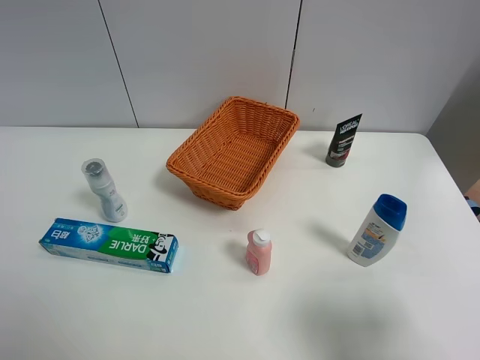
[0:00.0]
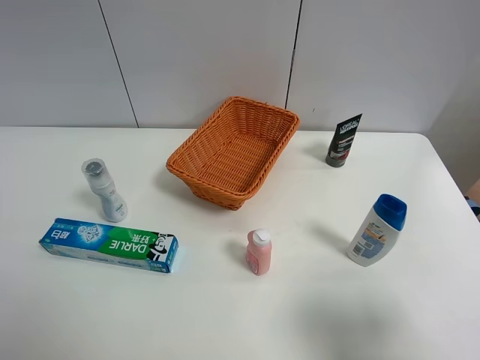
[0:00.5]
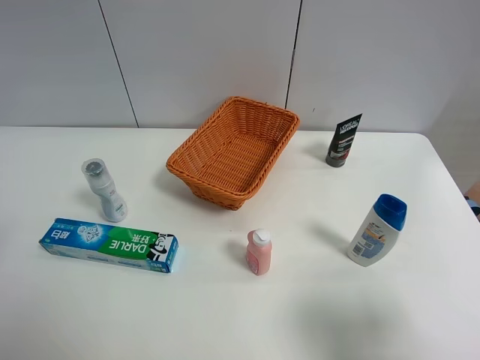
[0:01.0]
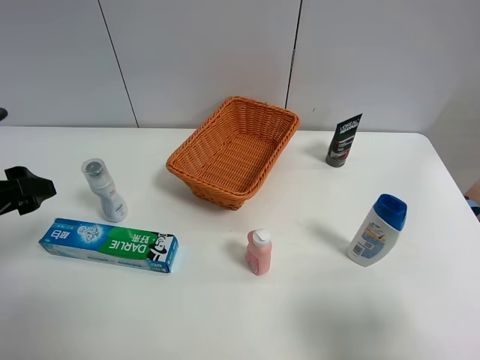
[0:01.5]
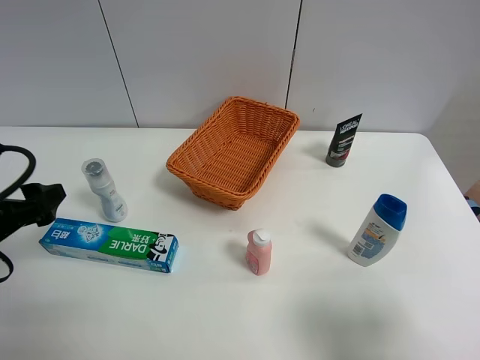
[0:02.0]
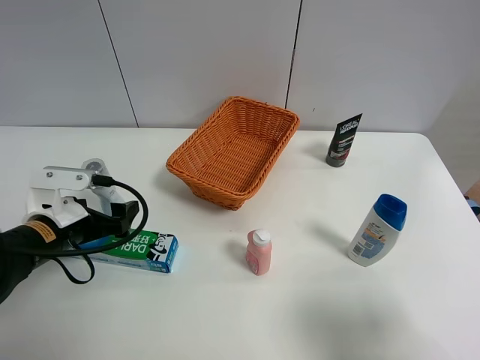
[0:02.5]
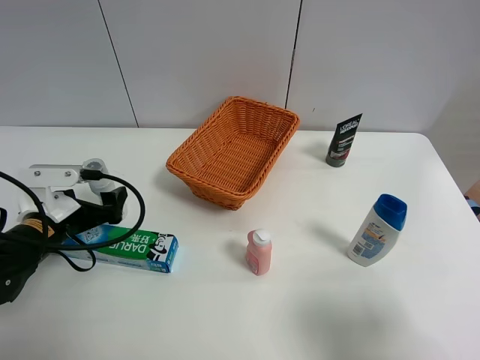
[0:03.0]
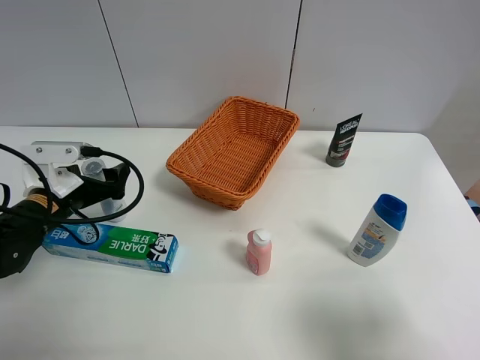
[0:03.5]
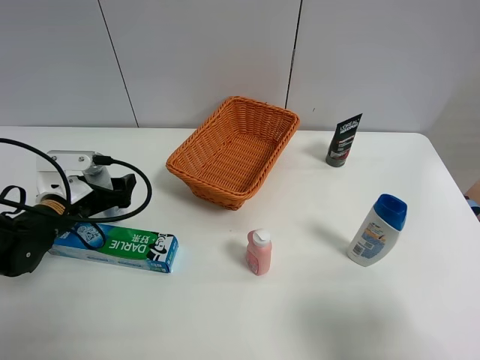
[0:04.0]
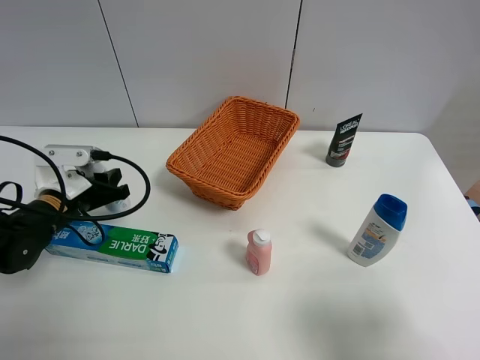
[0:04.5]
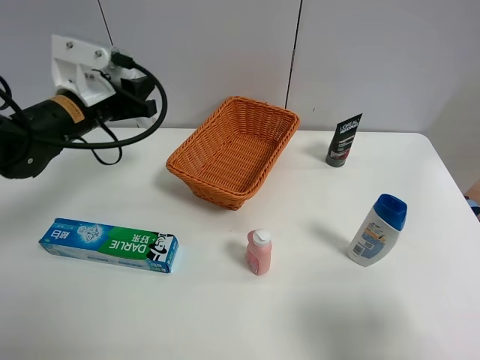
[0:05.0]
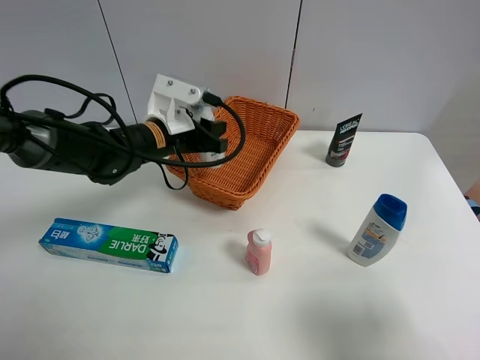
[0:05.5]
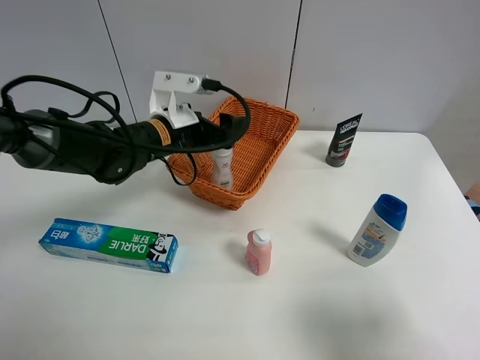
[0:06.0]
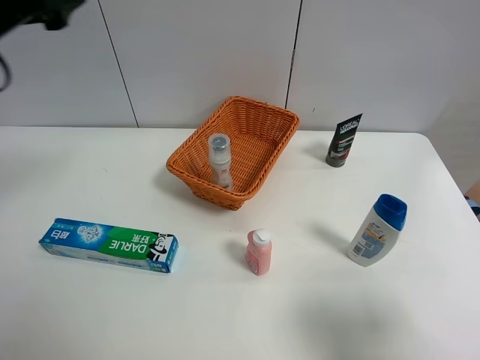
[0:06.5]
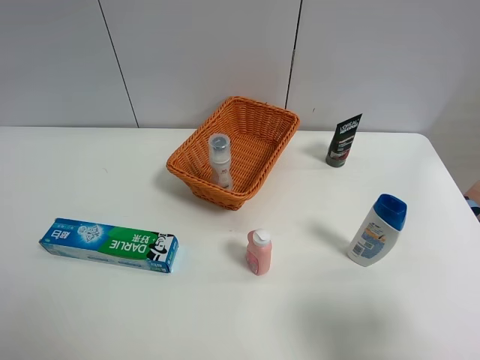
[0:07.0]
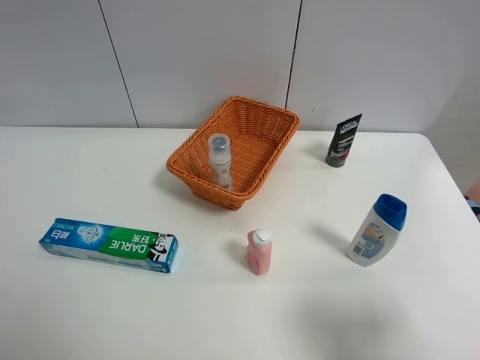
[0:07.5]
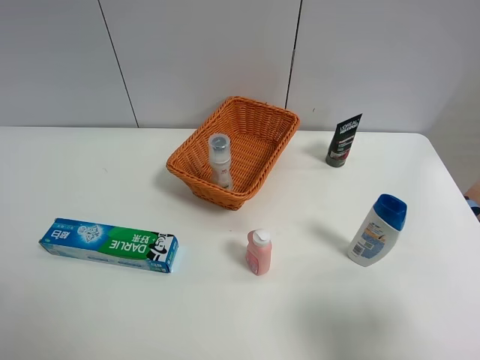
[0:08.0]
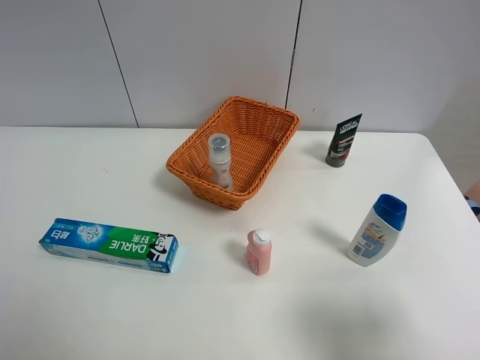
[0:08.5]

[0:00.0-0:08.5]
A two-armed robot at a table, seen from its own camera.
Task of the whole recording: Place the object closest to the toothpaste in the basket.
Step, 0:00.0 to 0:04.0: Grasp the cleaning agent with left gripper.
Step, 0:04.5 to 0:06.0: Place the cleaning agent in the basket with left gripper.
0:00.0 to 0:02.0: The left gripper heads forward and downward, covering approximately 20 cm.
0:02.0 to 0:04.0: The left gripper shifts approximately 15 cm forward and downward.
0:04.0 to 0:06.5: The left gripper goes up and down, about 30 cm each way, reversing 2 times, and closes and opens again.
0:06.5 to 0:08.5: The left gripper moves backward and downward, roughly 25 cm.
